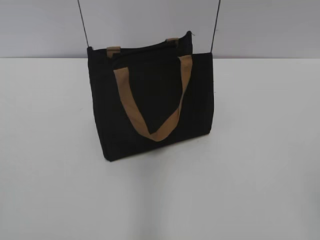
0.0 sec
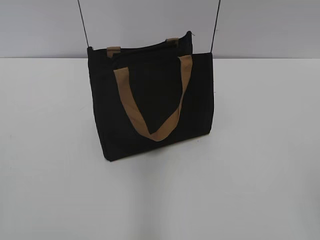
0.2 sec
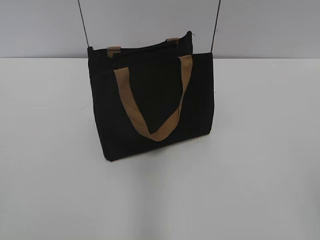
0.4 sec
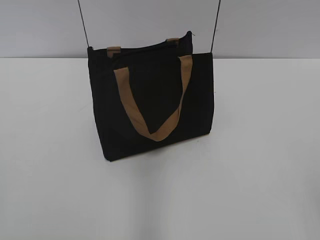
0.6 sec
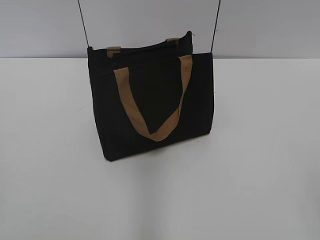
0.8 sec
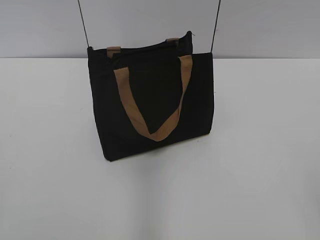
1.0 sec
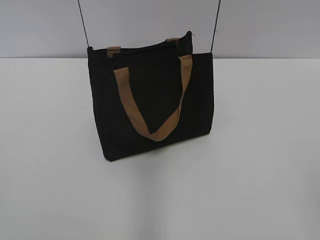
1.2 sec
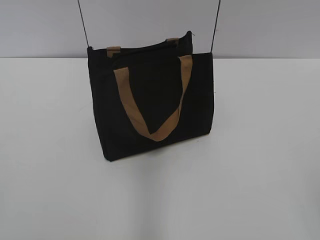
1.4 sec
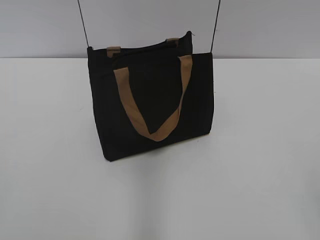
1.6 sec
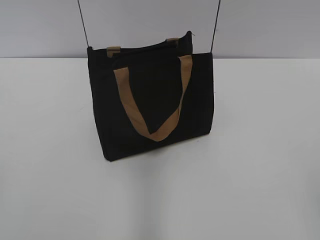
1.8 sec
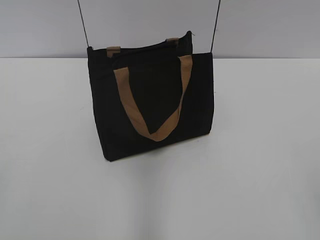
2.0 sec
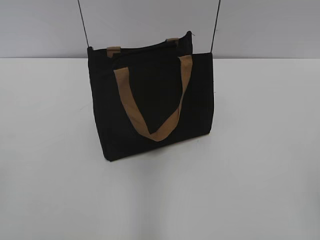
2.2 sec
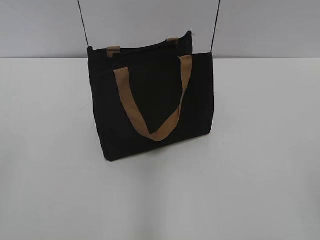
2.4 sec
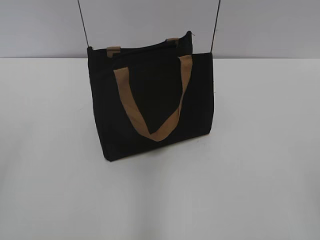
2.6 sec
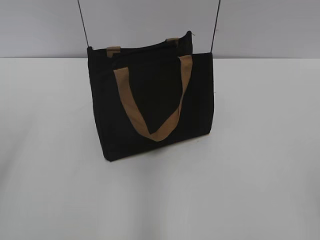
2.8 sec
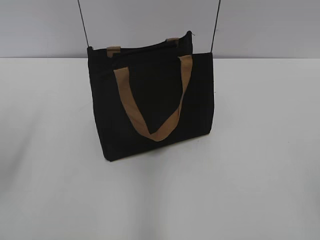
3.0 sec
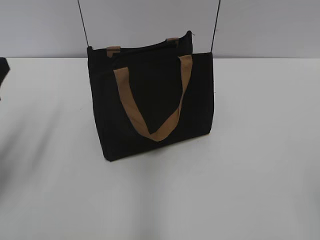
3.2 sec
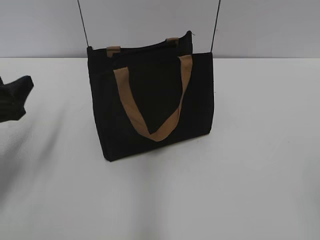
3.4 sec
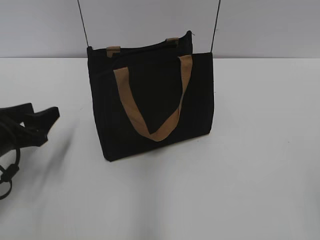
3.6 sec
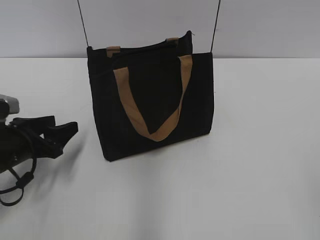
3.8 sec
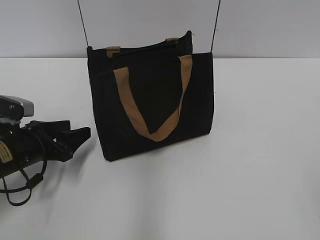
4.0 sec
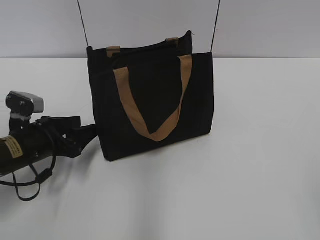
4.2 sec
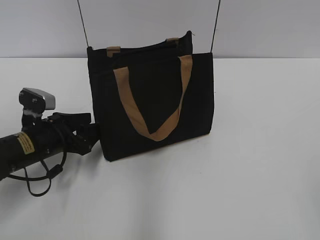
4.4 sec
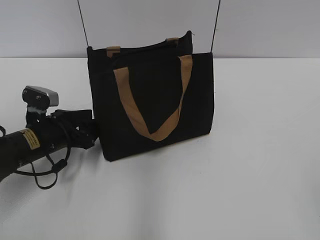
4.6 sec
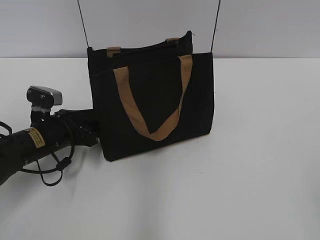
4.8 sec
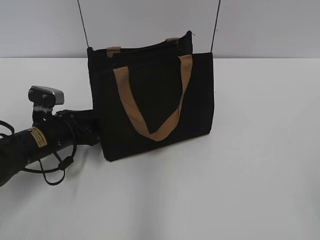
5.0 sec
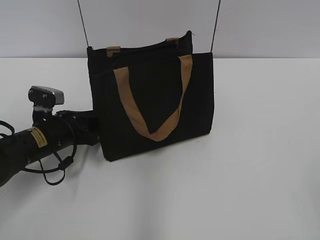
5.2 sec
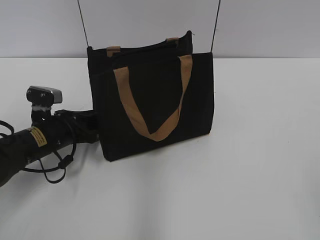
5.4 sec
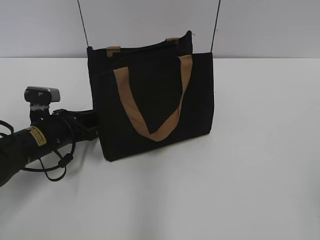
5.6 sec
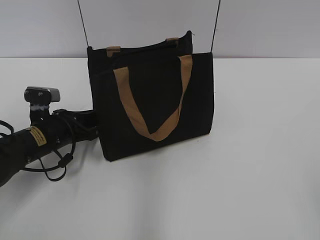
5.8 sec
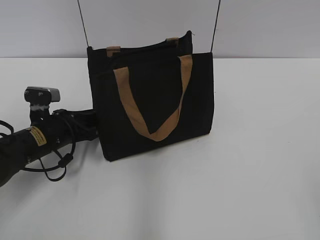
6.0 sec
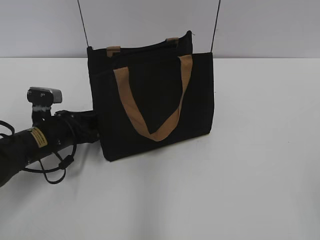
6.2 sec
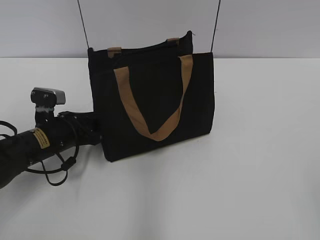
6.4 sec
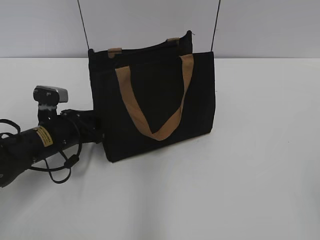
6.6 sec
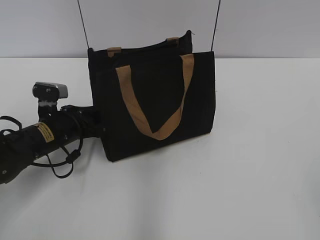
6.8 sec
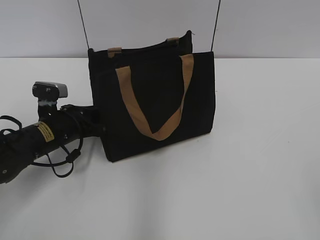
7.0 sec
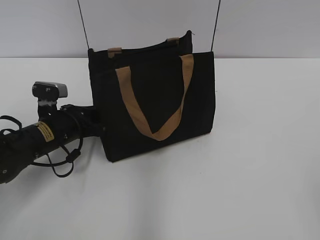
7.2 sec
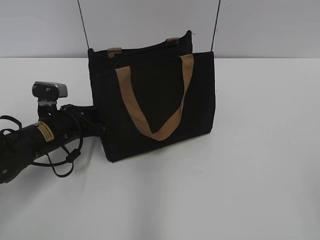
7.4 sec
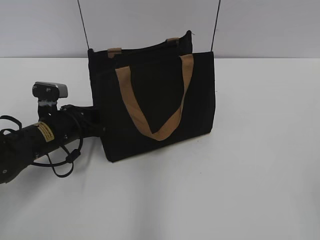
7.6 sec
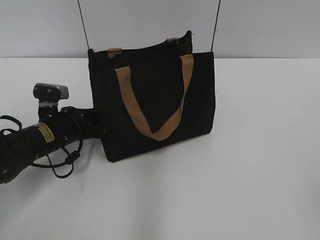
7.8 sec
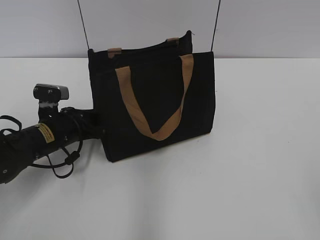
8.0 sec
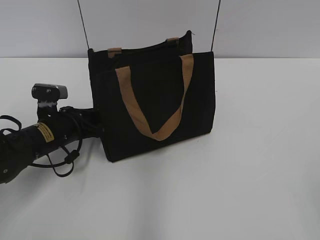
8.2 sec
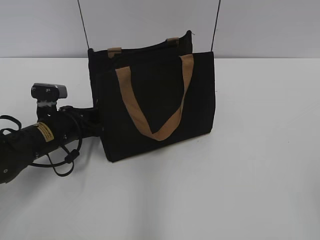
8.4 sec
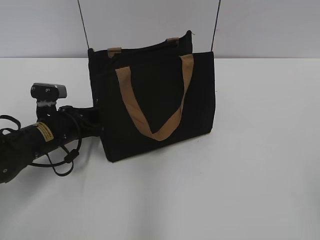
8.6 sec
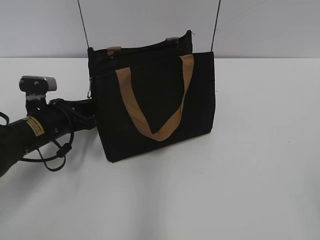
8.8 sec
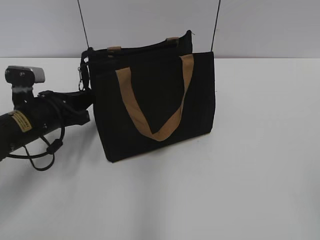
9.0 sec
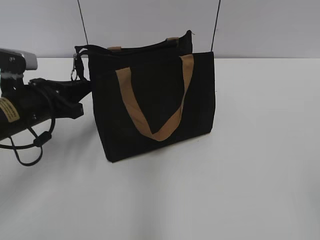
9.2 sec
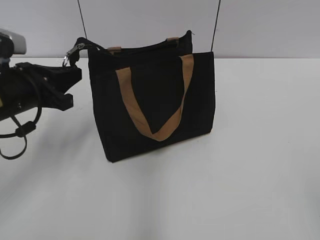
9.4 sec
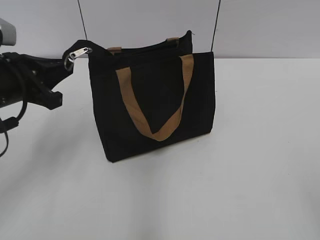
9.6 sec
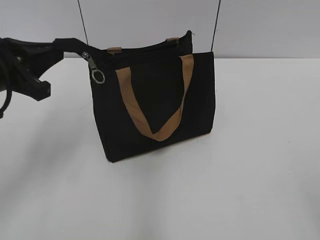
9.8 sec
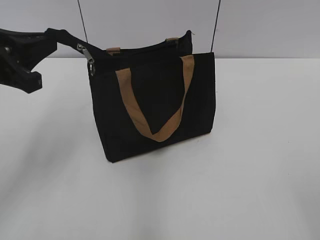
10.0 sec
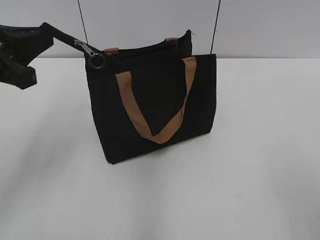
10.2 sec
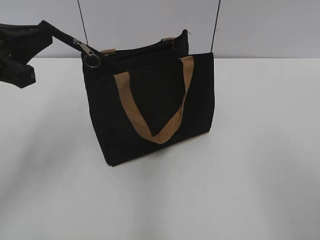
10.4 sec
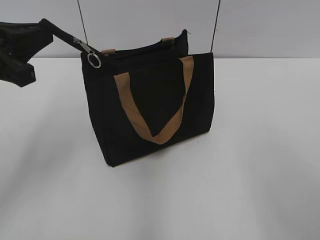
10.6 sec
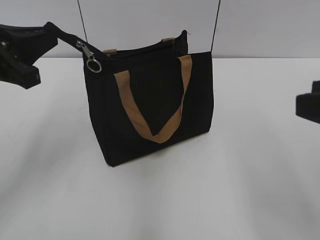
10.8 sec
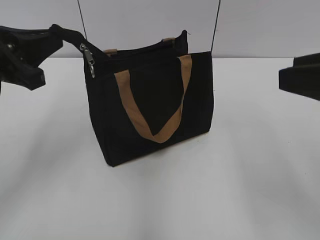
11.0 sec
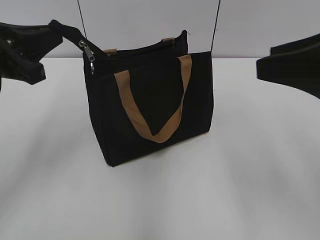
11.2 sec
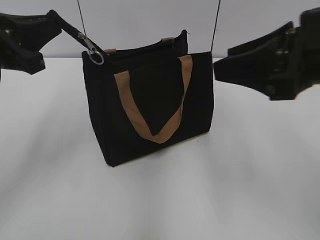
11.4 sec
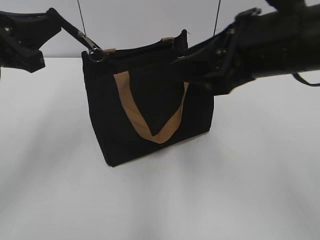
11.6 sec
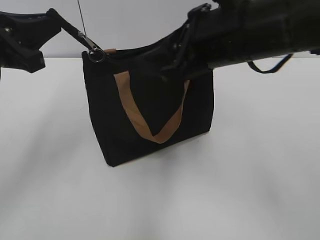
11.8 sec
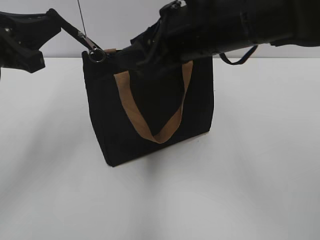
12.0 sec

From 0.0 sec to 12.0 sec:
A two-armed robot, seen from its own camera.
From 1.6 sec to 3.0 sec: The left gripper heads forward, covering about 15 cm, and opens up.
From 3.0 sec to 4.4 sec: The left gripper is displaced downward, forward and to the right by some 25 cm.
From 4.4 sec to 6.0 sec: The left gripper closes its fingers.
From 6.0 sec to 9.0 sec: The grippers stay close to where they were, moving slightly.
From 9.0 sec to 10.4 sec: The left gripper goes roughly 15 cm upward and backward. Meanwhile the right gripper shifts by approximately 5 cm.
From 10.4 sec to 12.0 sec: The right gripper moves forward and to the left, about 30 cm.

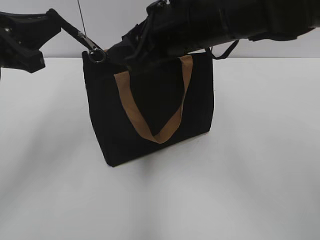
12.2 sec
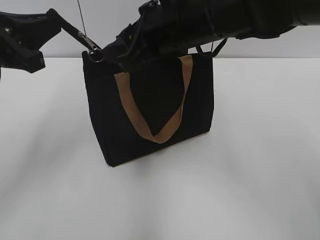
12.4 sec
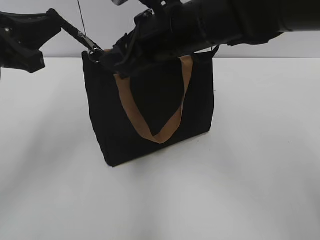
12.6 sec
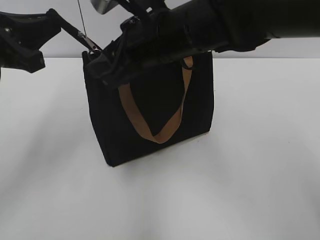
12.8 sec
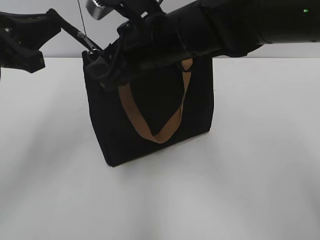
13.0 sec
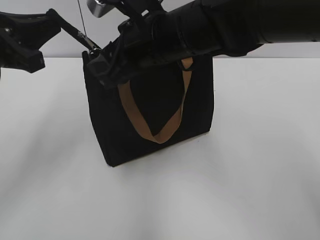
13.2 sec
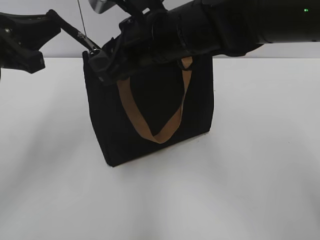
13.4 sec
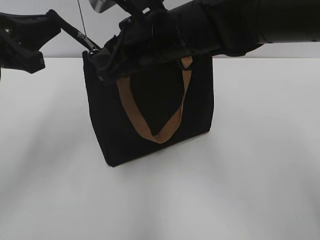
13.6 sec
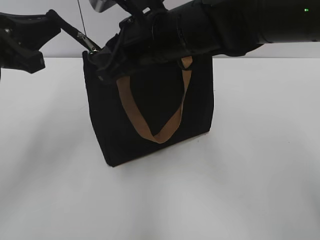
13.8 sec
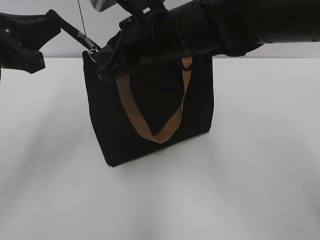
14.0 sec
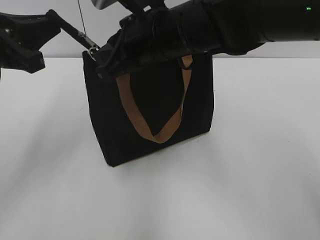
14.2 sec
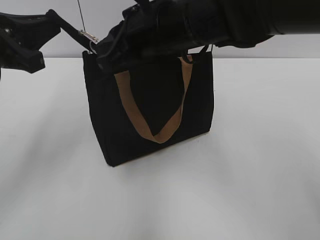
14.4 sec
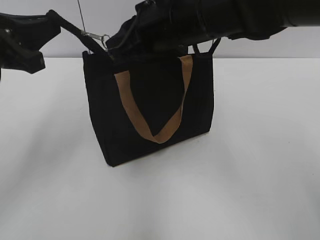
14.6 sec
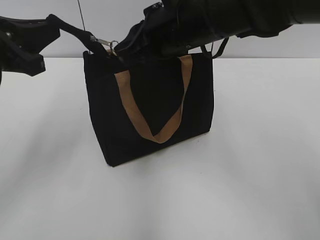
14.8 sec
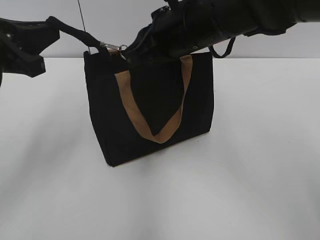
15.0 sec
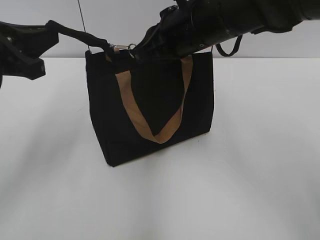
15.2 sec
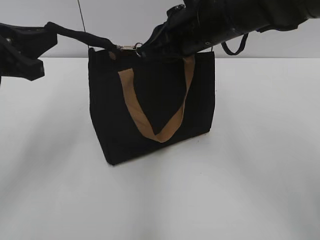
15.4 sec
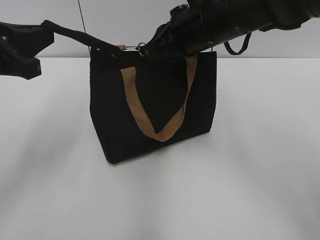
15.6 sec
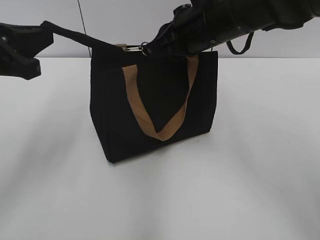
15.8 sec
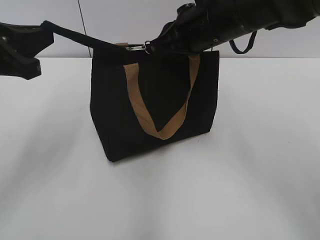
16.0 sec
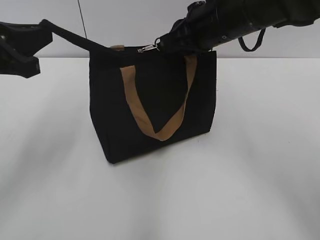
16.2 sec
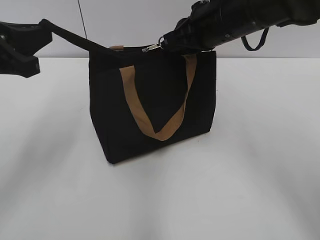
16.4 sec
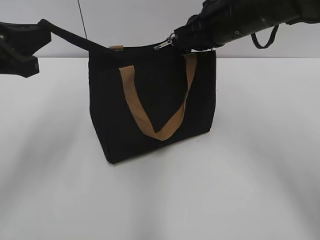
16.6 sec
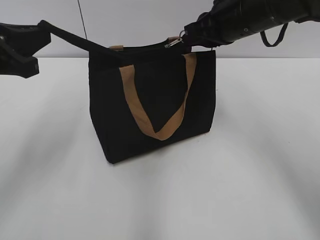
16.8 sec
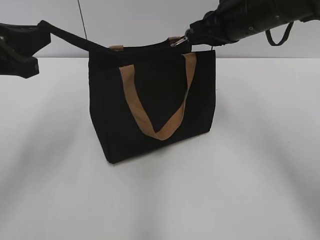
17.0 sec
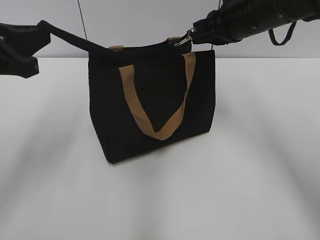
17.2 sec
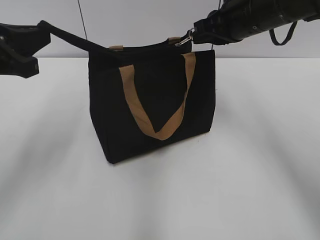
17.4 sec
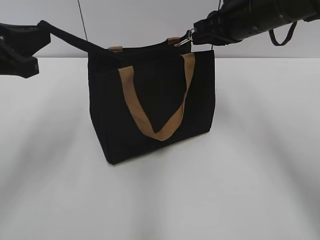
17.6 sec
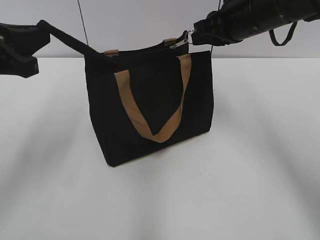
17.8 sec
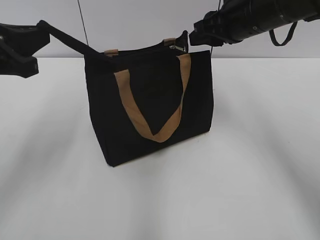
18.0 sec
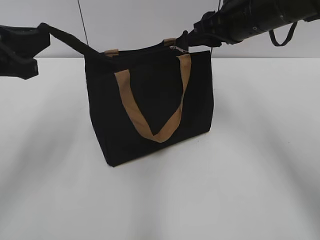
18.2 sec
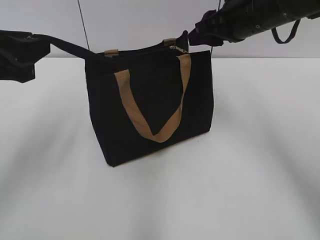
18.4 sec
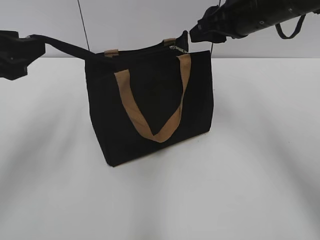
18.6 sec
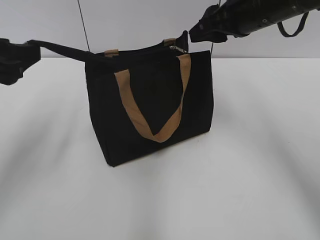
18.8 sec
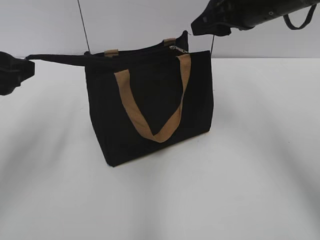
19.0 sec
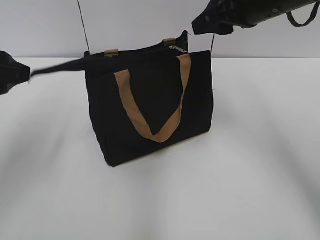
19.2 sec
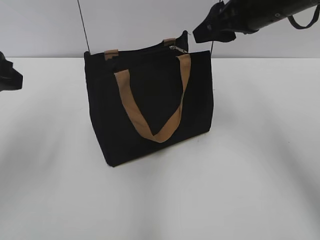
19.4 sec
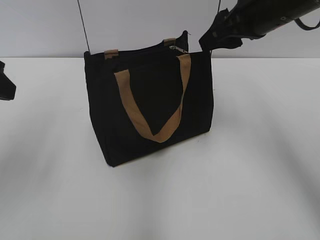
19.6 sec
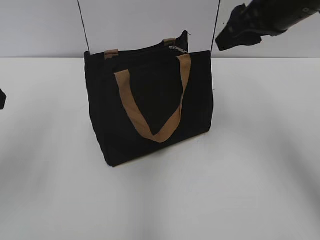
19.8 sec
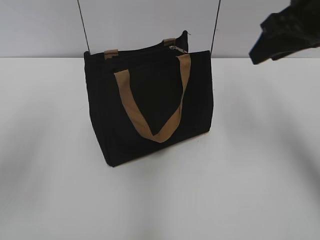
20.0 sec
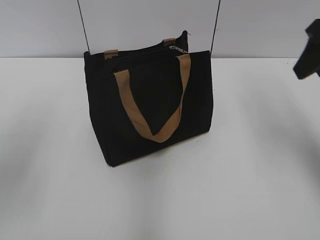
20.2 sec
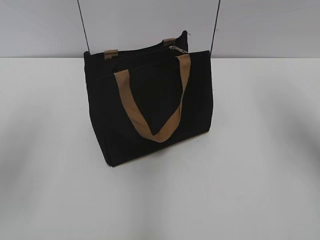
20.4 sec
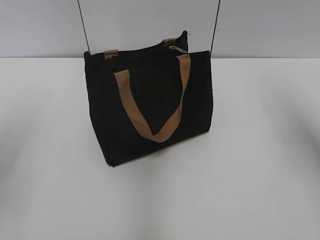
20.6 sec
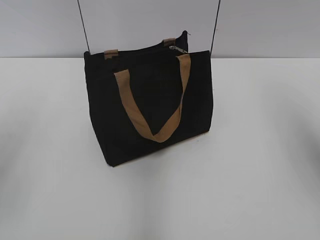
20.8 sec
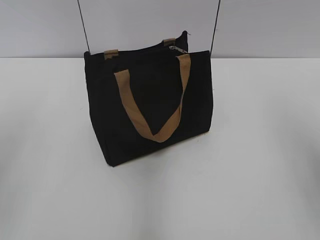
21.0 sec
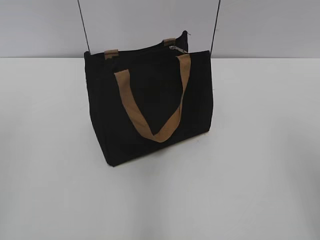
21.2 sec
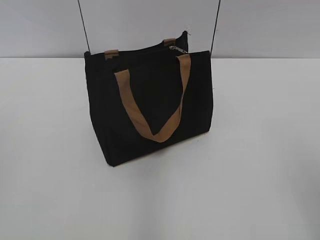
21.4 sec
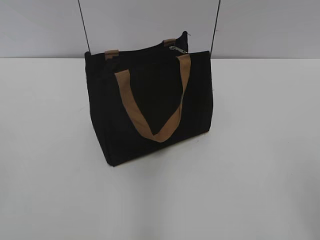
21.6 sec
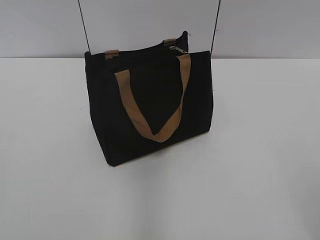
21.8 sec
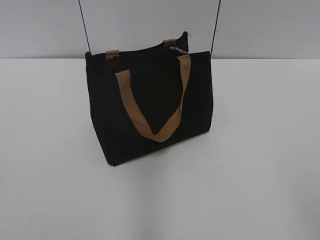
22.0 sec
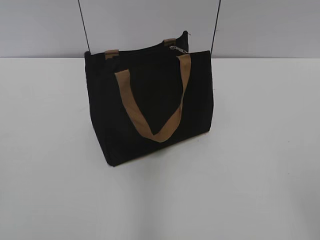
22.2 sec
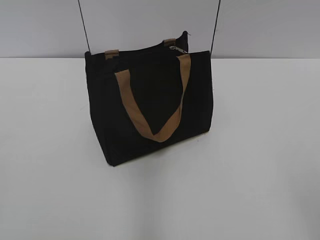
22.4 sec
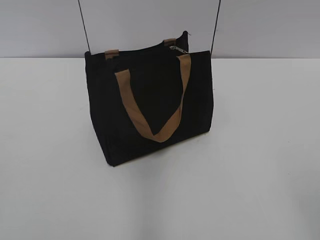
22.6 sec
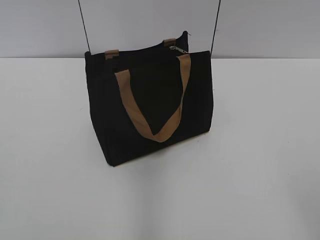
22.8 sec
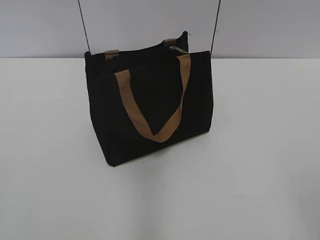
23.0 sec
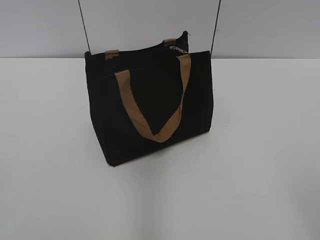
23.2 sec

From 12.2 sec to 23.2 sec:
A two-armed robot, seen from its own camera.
Step, from 12.2 sec to 17.8 sec: Zip up the bag with your right hand.
Step, from 18.0 sec to 19.2 sec: Grab the zipper with your left hand.
From 12.2 sec to 13.8 sec: The right gripper closes its fingers.
From 13.8 sec to 15.4 sec: The right gripper heads to the right, covering roughly 5 cm.
From 15.4 sec to 17.0 sec: The right gripper is displaced to the right by roughly 10 cm.
From 17.0 sec to 18.4 sec: The left gripper opens its fingers. Meanwhile the right gripper opens its fingers.
From 18.4 sec to 20.0 sec: The right gripper heads backward and to the right, covering roughly 10 cm; the left gripper moves approximately 5 cm.
From 20.0 sec to 21.6 sec: The right gripper shifts roughly 30 cm backward.
